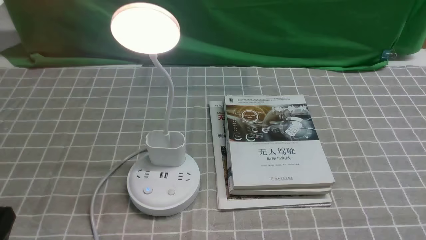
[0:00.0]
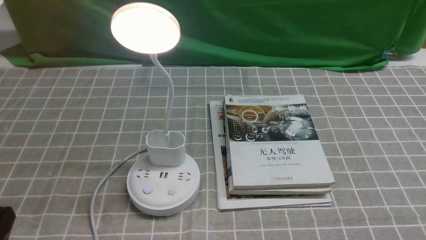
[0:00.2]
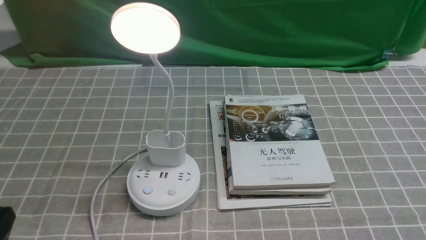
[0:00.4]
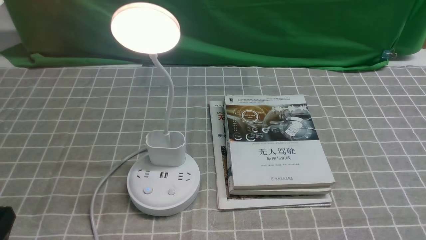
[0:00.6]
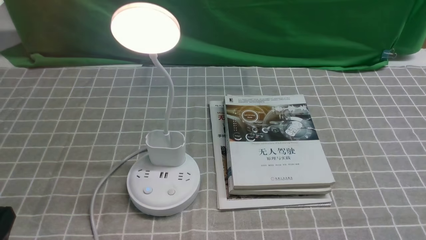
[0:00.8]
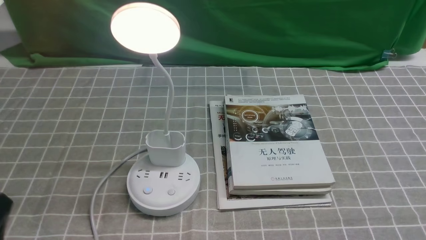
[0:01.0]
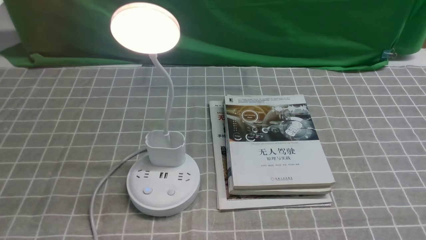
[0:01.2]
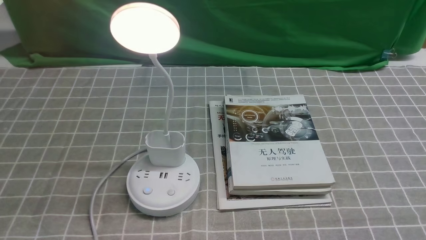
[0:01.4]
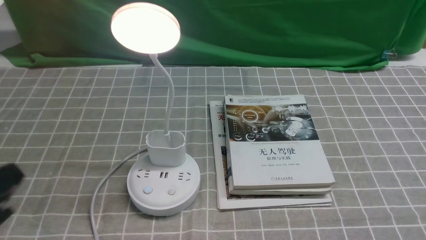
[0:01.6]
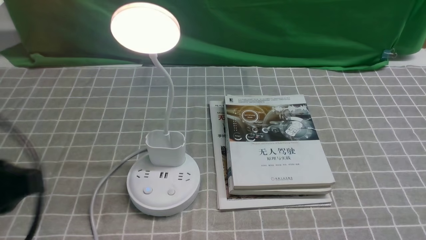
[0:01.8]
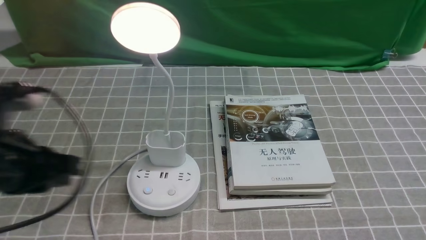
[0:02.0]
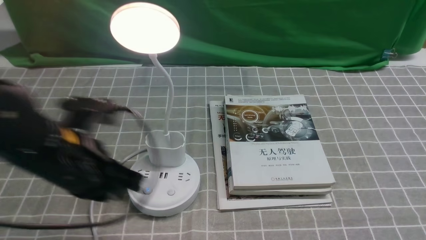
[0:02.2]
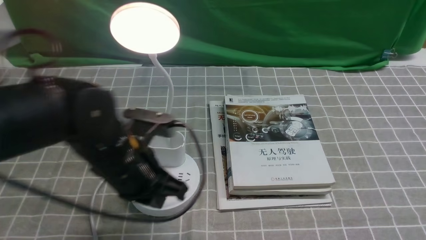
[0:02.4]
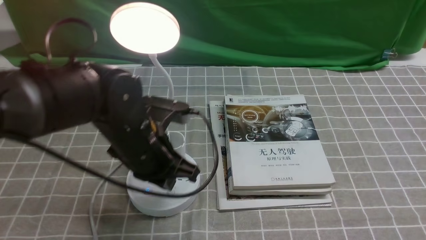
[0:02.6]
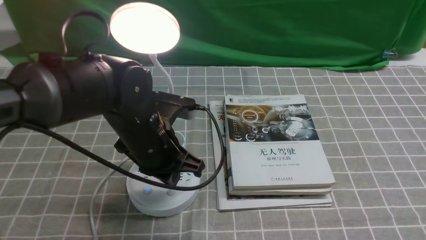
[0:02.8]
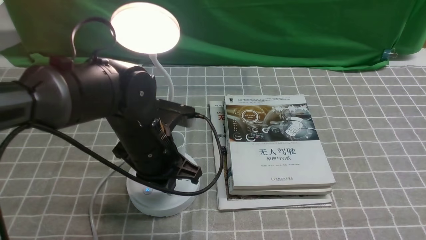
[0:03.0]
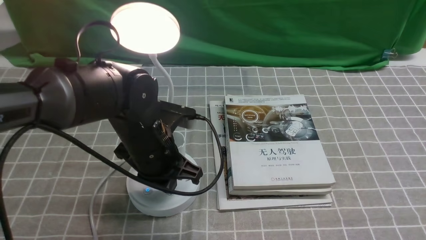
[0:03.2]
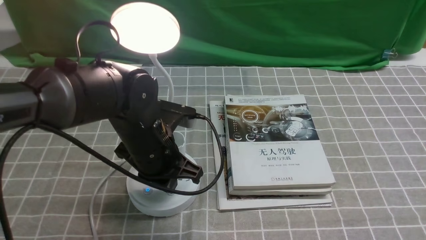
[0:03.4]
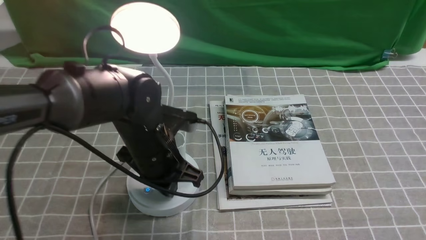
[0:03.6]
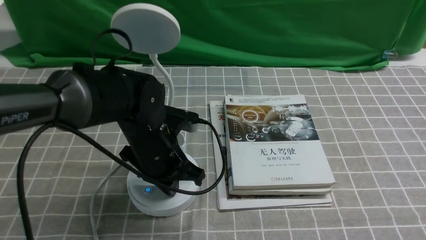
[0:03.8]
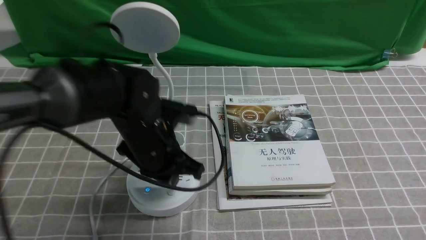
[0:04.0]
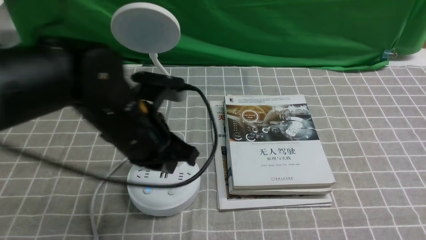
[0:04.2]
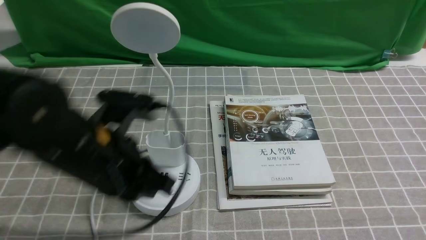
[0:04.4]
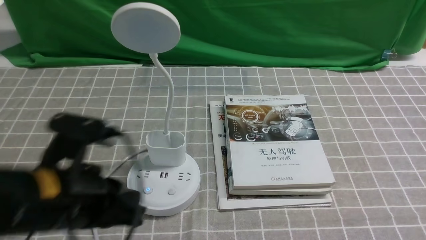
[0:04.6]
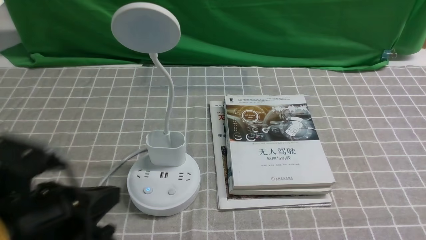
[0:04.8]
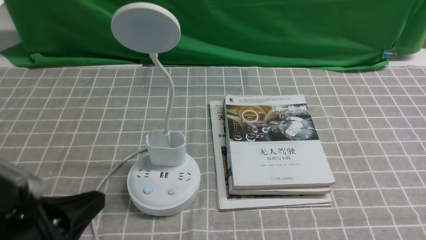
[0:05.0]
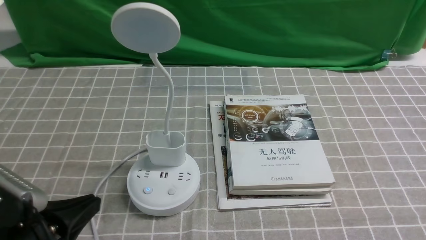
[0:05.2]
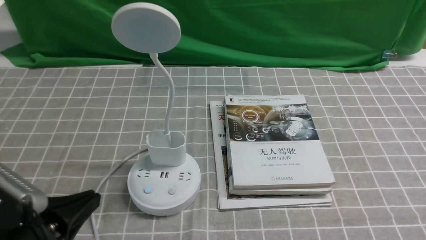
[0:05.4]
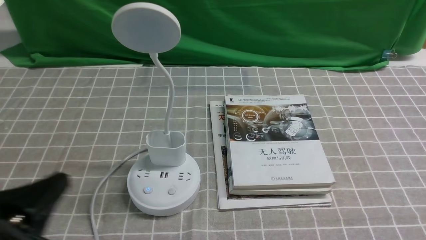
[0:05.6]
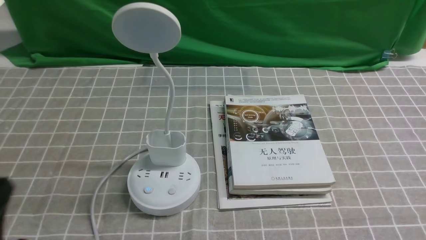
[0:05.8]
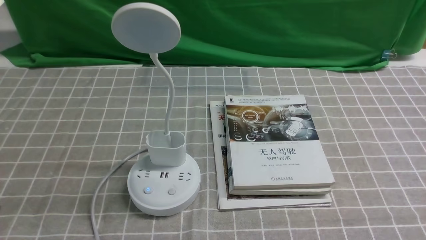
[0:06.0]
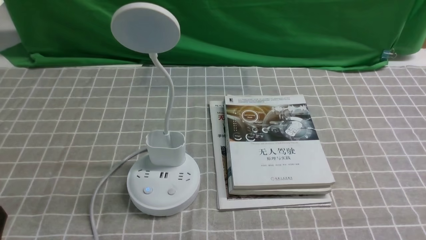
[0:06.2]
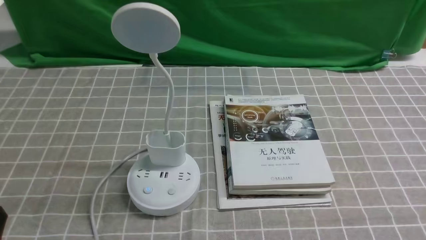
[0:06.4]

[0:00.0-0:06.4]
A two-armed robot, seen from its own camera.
Task of the whole recording: turn off the desk lamp on the grey coffee tablecloth by hand.
Step, 0:00.0 to 0:04.0: use the left arm to press the button switch on the lamp holder.
0:01.6 to 0:03.2: The left gripper shifts roughly 25 cm forward and to the right.
0:03.2 to 0:04.8: The left gripper shifts about 15 cm backward and to the left.
0:04.8 to 0:06.4: The left gripper travels backward, to the left and downward by some 15 cm, and opens.
